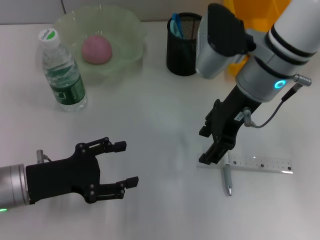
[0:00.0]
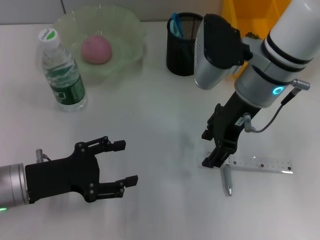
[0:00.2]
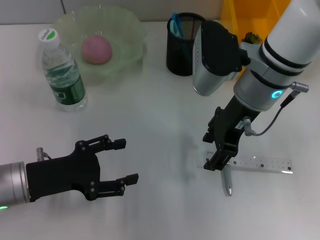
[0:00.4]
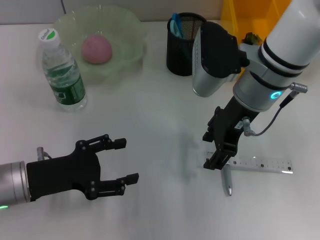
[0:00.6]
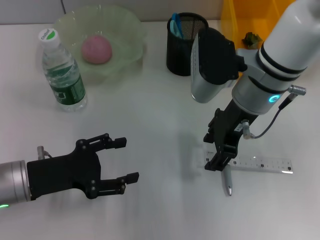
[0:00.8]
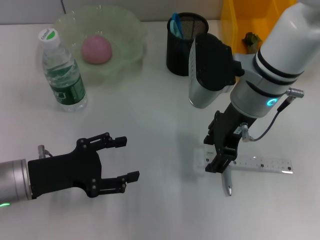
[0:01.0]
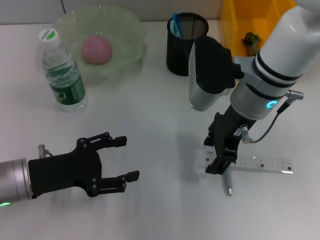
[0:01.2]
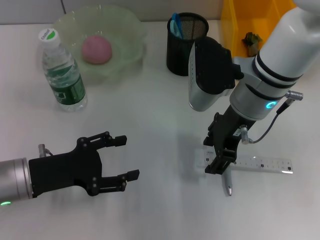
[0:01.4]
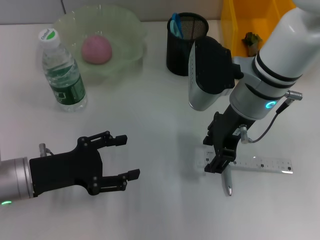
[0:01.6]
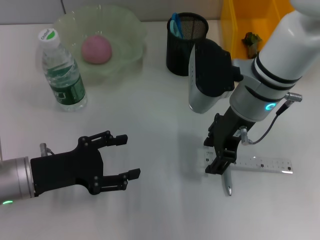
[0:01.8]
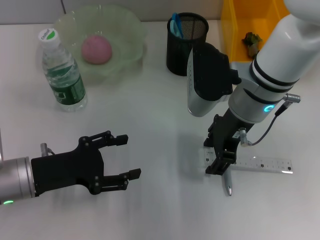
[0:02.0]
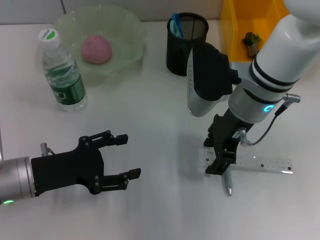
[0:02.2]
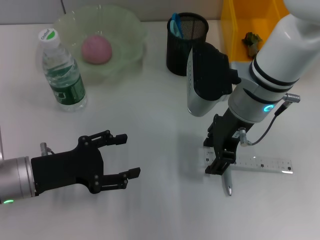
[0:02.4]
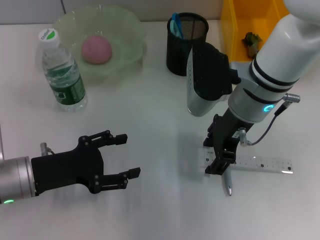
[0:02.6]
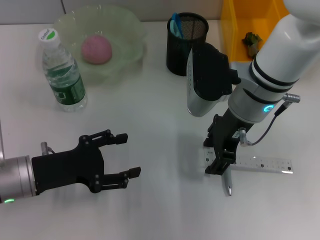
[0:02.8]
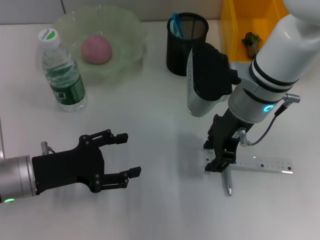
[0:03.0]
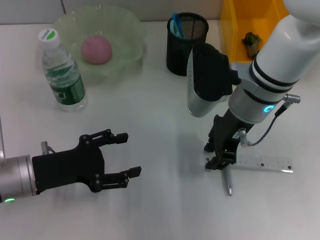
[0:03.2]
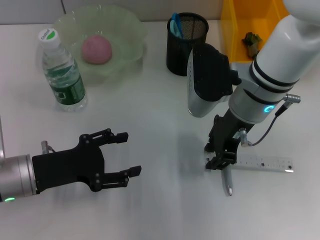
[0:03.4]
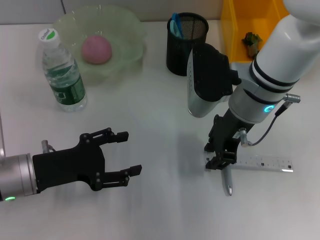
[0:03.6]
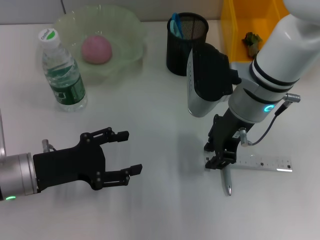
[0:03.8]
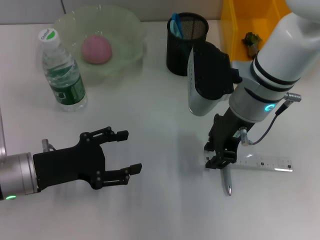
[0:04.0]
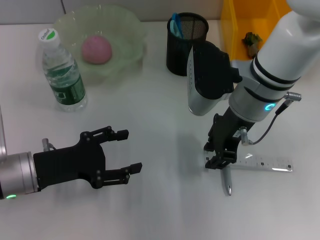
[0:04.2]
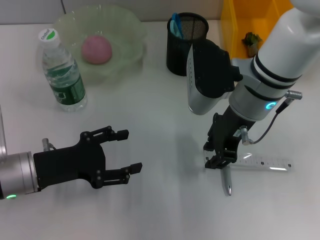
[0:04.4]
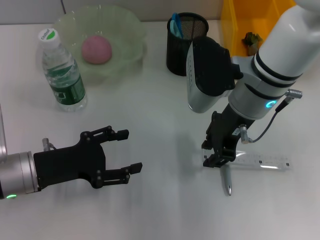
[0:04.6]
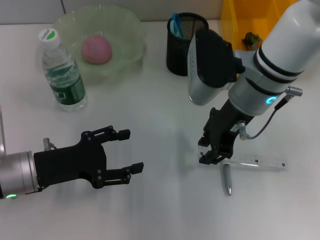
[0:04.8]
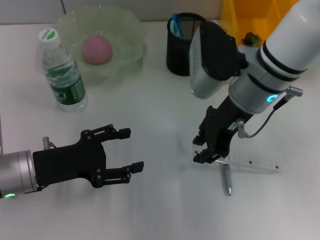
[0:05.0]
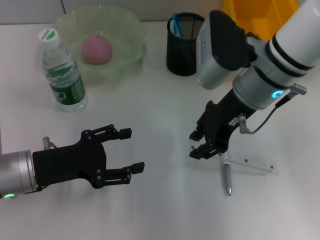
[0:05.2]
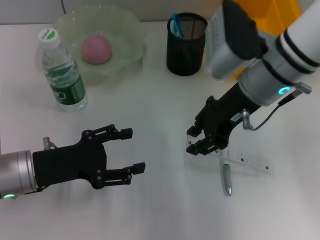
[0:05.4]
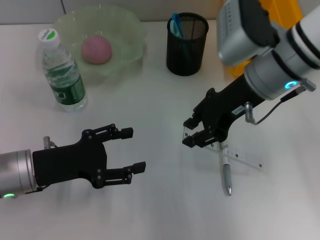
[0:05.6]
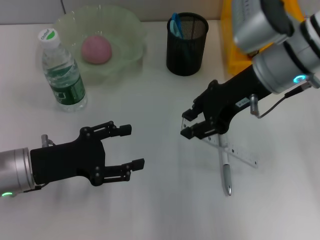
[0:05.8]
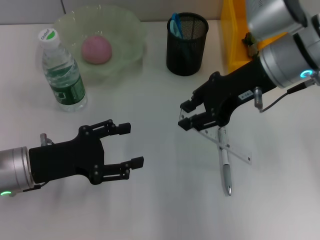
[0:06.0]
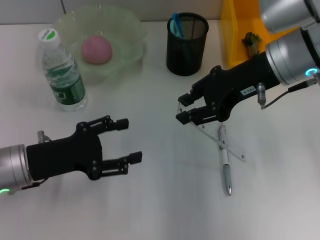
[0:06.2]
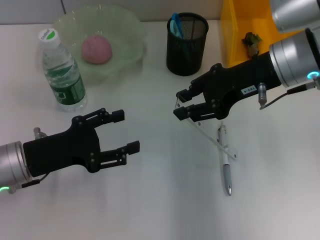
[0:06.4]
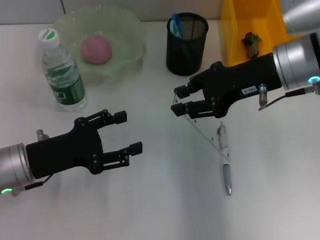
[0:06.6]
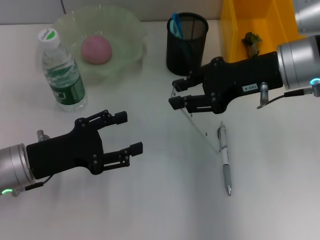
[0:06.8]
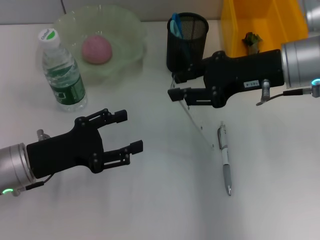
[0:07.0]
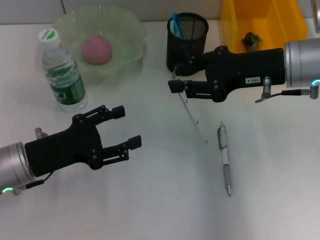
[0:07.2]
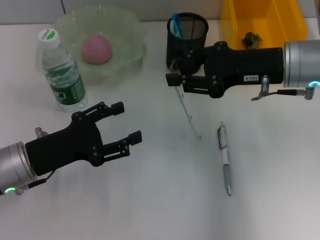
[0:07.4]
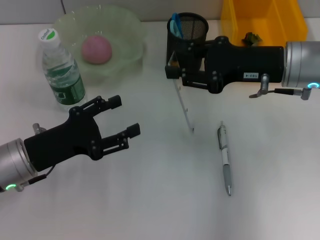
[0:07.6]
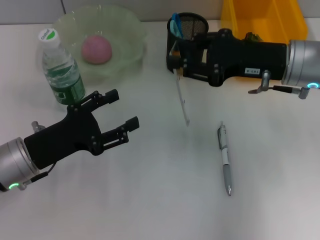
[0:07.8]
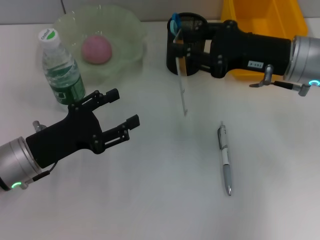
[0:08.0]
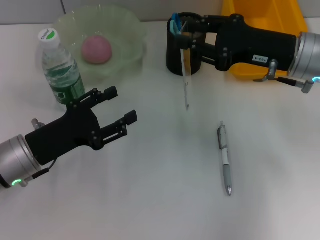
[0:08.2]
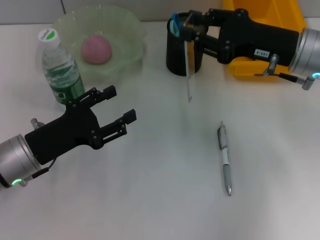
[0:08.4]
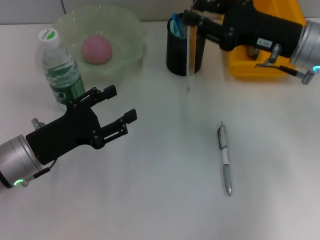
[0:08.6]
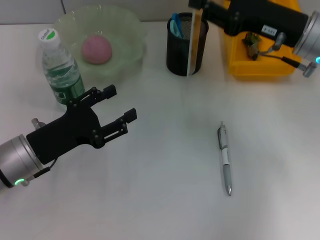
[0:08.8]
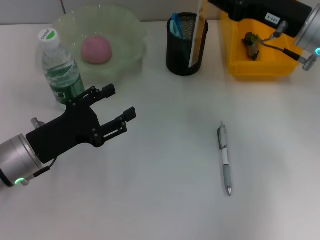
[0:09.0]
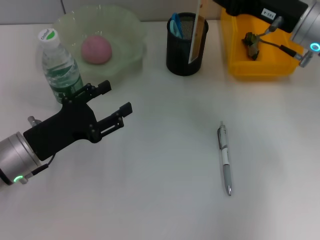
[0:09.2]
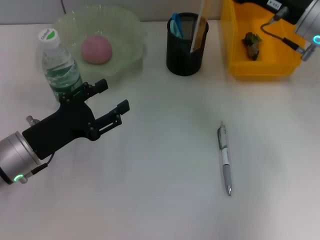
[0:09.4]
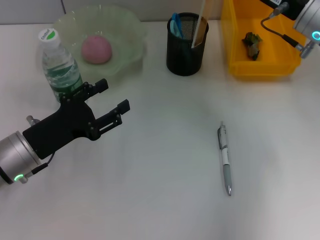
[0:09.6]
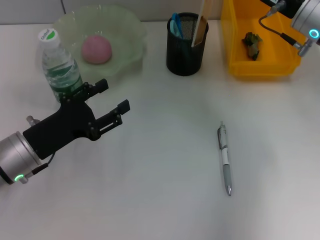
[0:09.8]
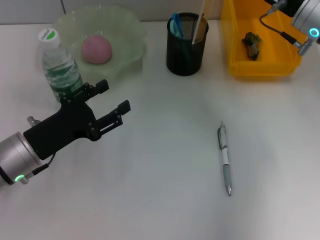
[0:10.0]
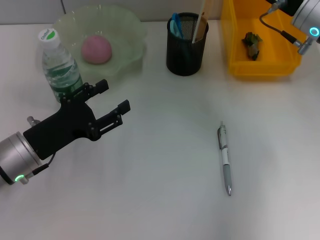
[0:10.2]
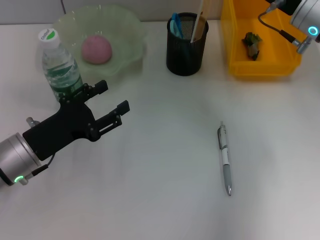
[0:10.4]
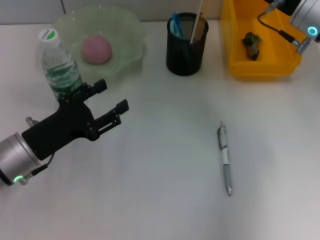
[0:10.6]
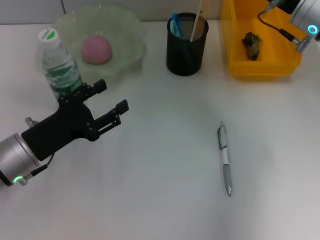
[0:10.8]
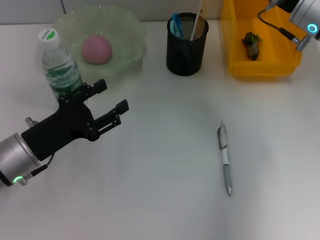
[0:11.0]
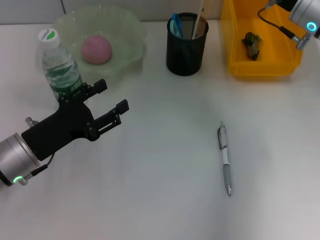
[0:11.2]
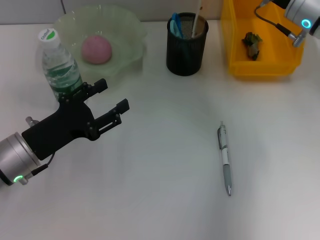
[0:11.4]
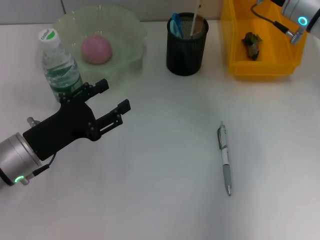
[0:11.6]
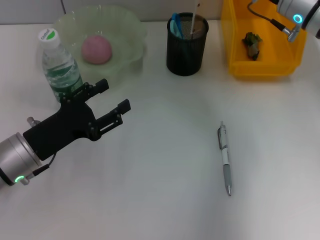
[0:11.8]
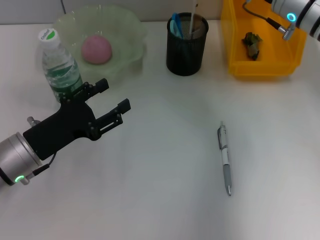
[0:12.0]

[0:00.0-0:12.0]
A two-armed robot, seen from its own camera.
Step, 0:00.0 to 0:03.6: Grab the ruler with the right hand.
0:00.0 to 0:01.6: The grippers stay close to where they were, moving slightly.
0:01.6 to 0:04.4: Both grippers stay about where they are.
0:04.4 to 0:06.0: The right gripper ends up approximately 5 cm from where it was.
0:06.0 to 0:07.6: The right gripper shifts by approximately 5 cm.
0:09.0 to 0:12.0: The grippers make only small movements.

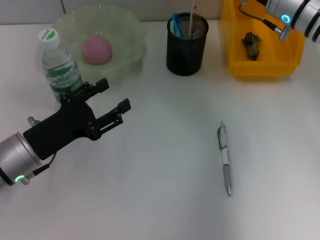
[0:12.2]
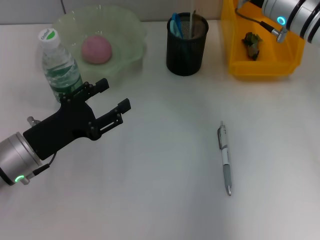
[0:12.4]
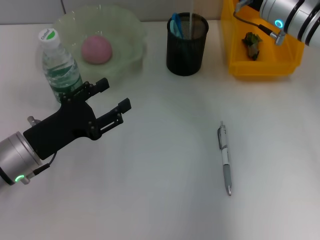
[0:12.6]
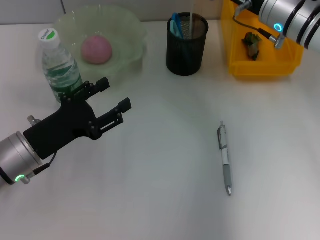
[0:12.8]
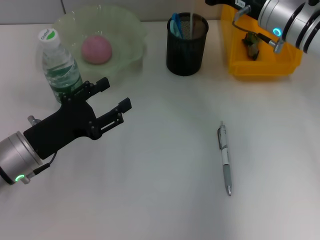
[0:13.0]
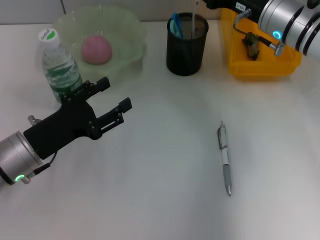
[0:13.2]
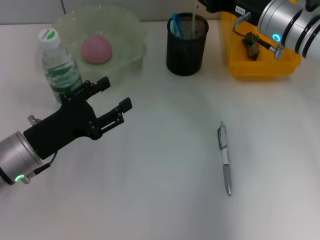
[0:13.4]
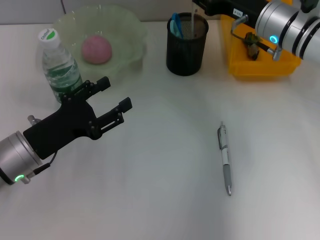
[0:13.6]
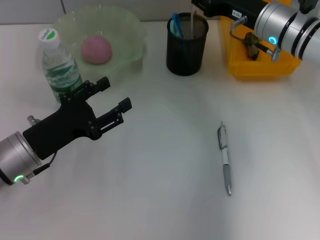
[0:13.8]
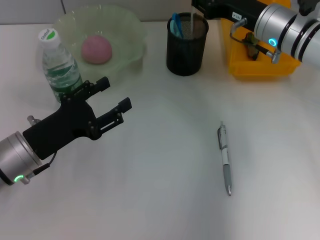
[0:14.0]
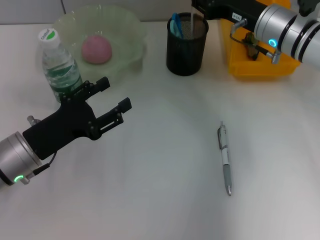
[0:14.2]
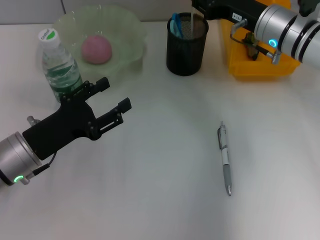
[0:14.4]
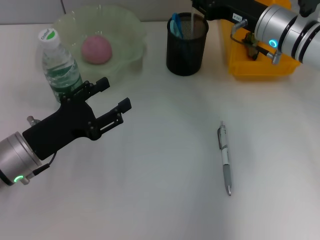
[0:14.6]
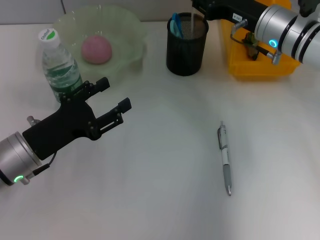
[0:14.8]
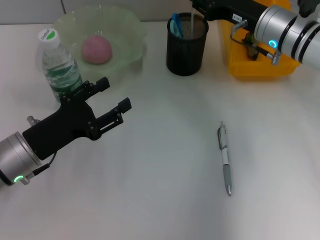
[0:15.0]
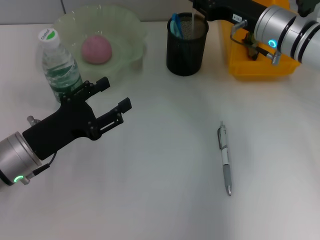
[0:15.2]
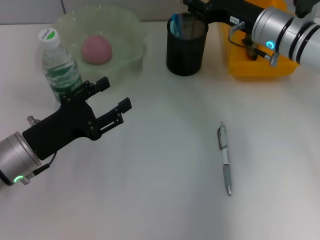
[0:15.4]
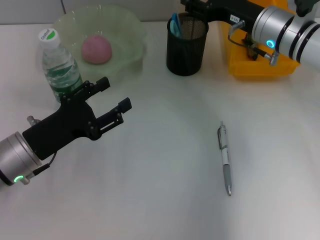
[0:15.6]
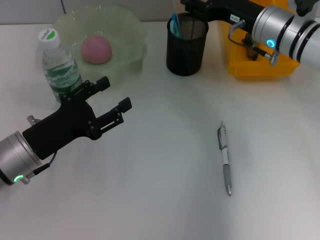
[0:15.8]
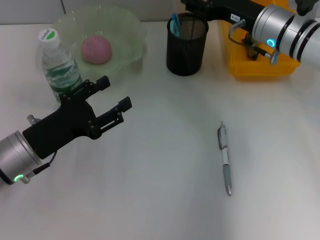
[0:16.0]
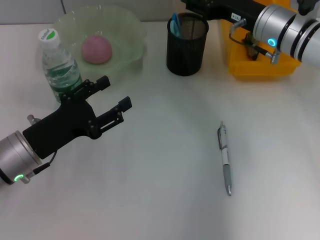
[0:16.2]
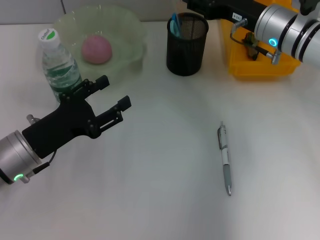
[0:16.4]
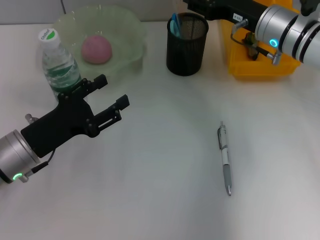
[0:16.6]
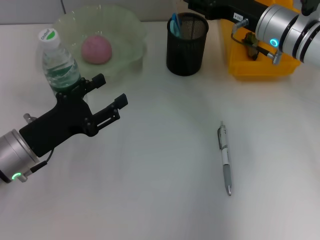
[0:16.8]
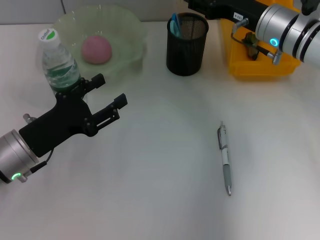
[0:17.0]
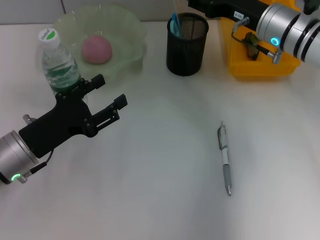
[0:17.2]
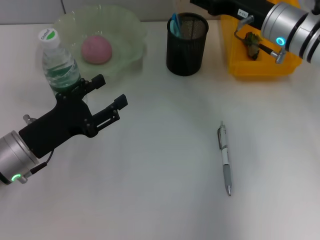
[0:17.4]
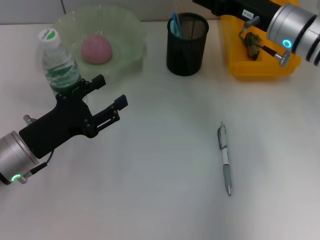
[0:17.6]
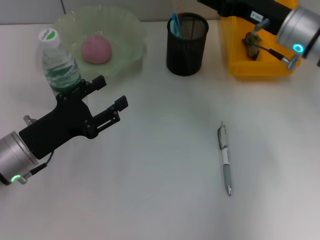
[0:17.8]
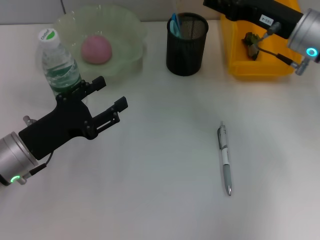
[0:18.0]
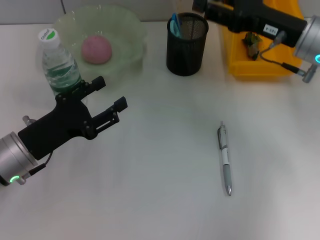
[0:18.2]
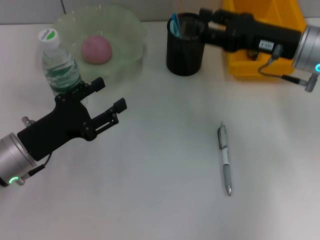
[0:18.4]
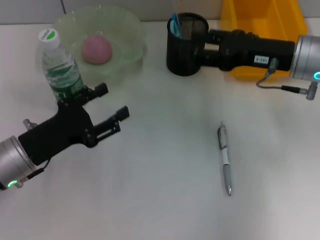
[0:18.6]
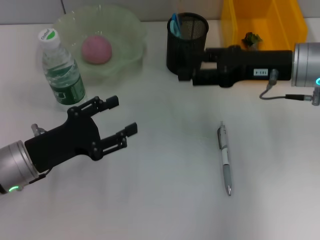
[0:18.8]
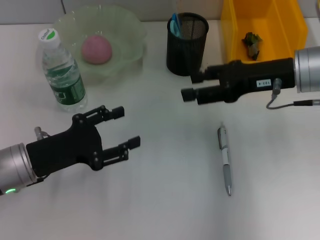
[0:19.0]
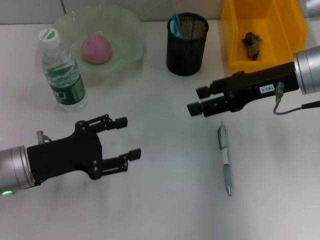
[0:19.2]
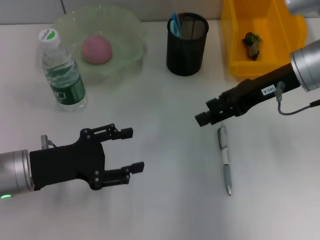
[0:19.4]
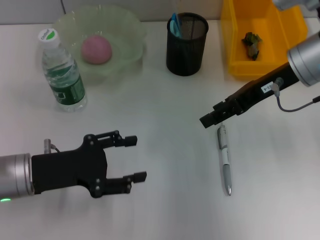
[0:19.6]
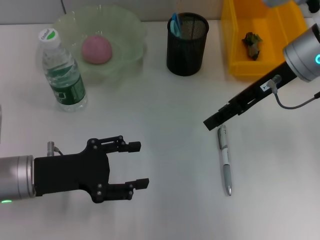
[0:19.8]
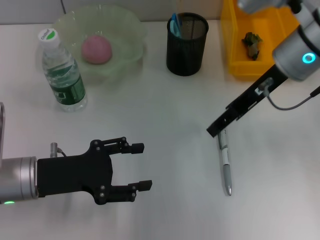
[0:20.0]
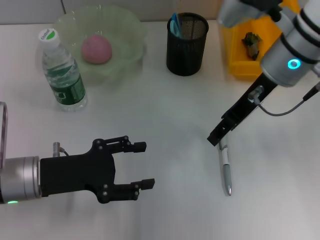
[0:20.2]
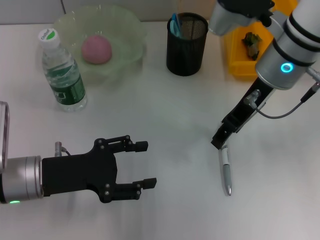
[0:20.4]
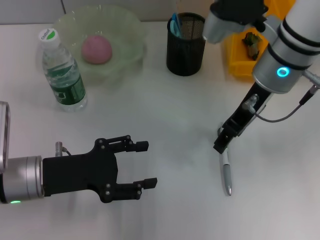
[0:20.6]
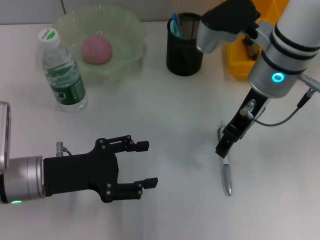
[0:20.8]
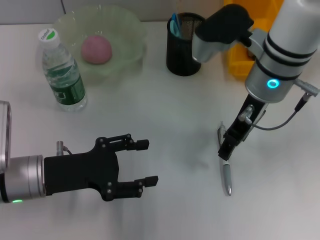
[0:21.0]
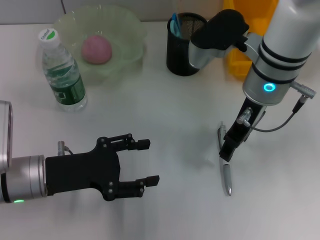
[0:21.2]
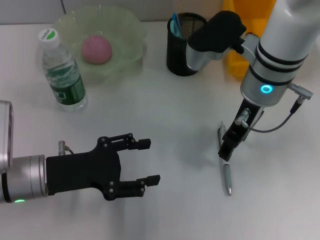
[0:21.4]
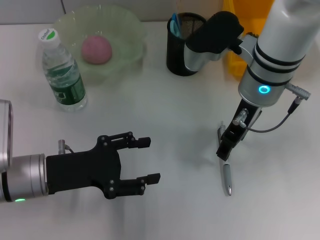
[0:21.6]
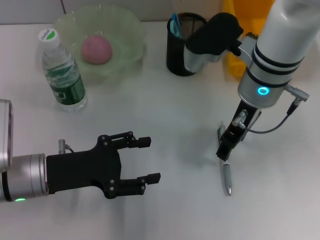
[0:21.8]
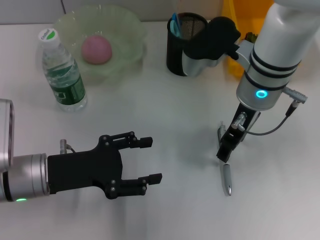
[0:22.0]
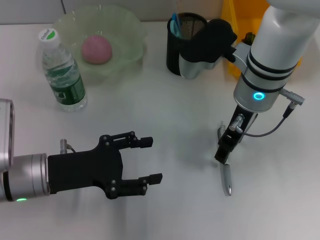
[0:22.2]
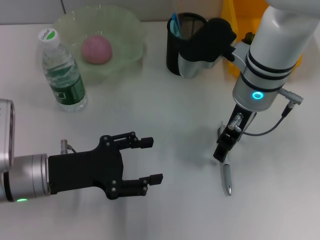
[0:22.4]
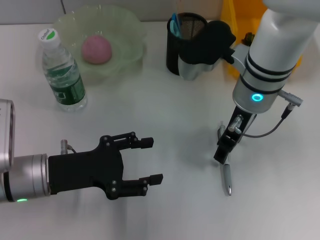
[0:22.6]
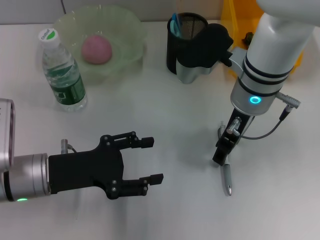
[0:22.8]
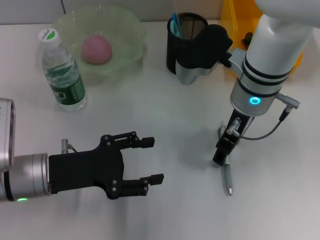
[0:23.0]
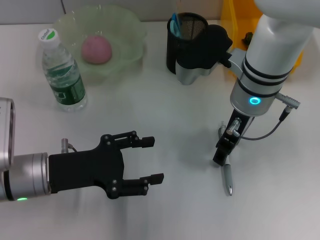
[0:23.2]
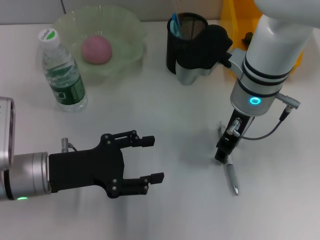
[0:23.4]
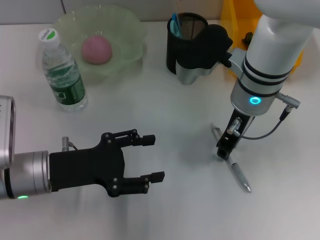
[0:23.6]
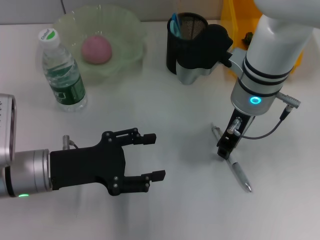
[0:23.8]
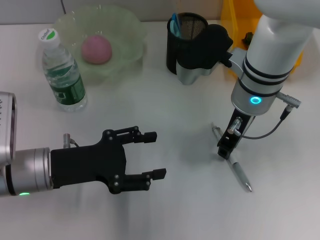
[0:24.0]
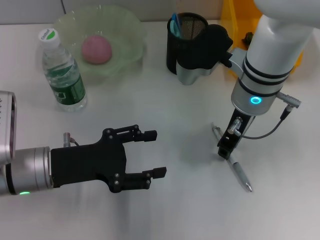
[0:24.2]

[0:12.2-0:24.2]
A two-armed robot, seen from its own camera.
Step, 0:12.2 to 0:16.2: Place the ruler into the pen holder with the right hand.
0:12.2 to 0:13.8: There are only small adjustments of the grippers.
0:13.8 to 0:15.2: Both grippers stay about where they are.
0:15.2 to 0:16.6: The right gripper opens up.
0:16.6 to 0:18.2: The right gripper goes roughly 5 cm backward.
0:18.2 to 0:19.8: The right gripper shifts by about 5 cm.
0:19.8 to 0:21.2: The right gripper travels to the left by about 5 cm.
0:21.2 to 0:22.6: The grippers stay close to where they were, moving slightly.
0:22.6 to 0:24.2: The right gripper closes its fingers.
